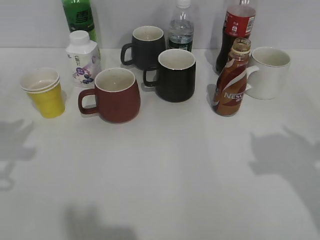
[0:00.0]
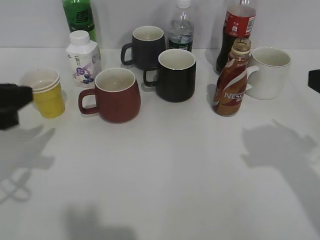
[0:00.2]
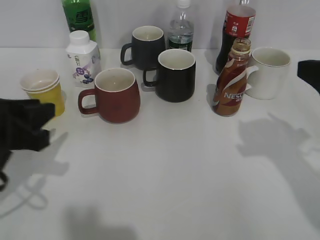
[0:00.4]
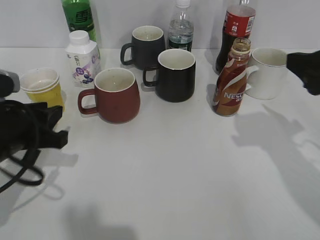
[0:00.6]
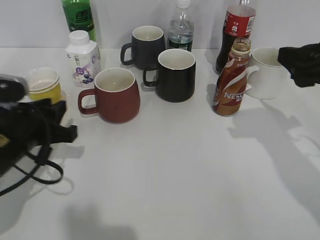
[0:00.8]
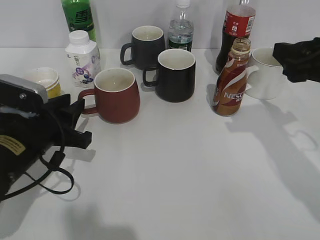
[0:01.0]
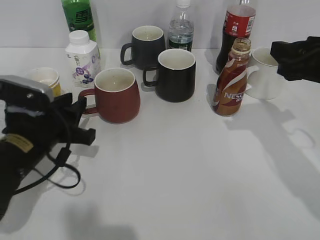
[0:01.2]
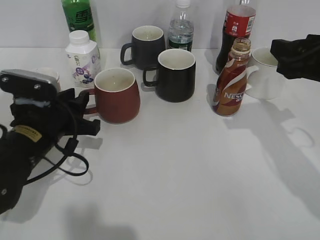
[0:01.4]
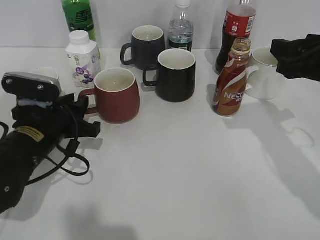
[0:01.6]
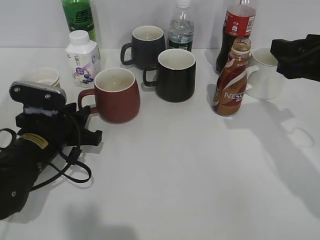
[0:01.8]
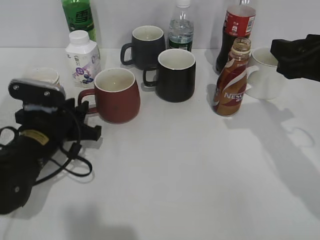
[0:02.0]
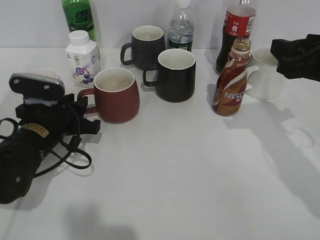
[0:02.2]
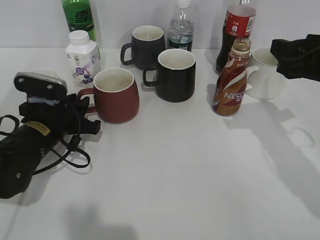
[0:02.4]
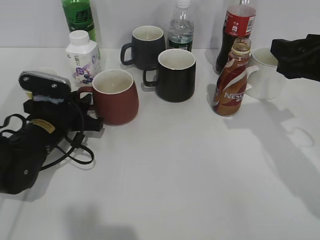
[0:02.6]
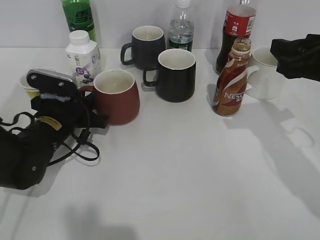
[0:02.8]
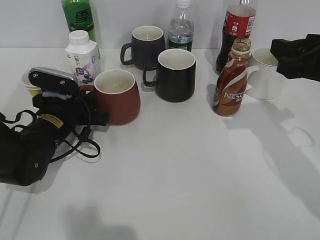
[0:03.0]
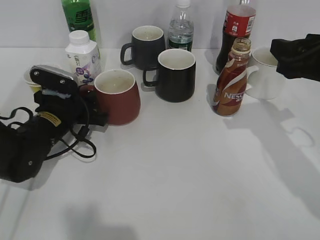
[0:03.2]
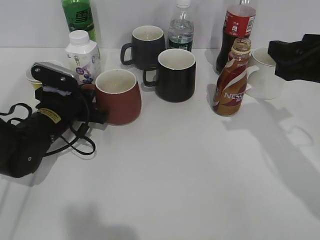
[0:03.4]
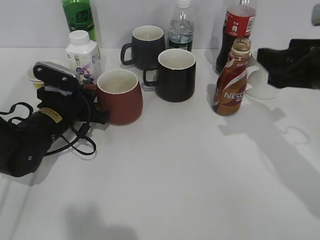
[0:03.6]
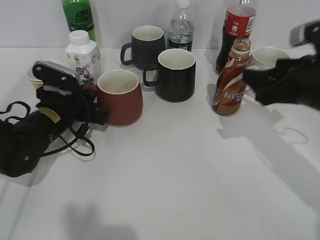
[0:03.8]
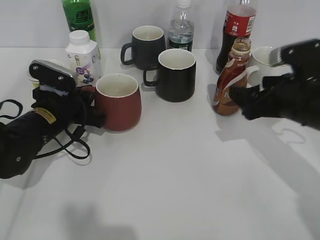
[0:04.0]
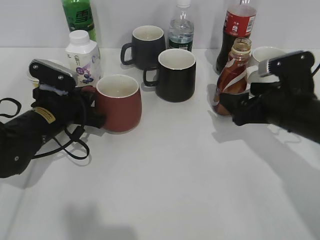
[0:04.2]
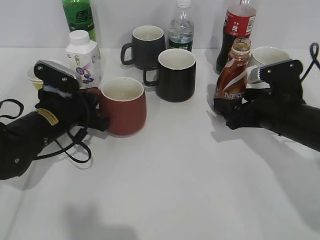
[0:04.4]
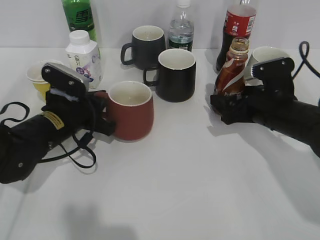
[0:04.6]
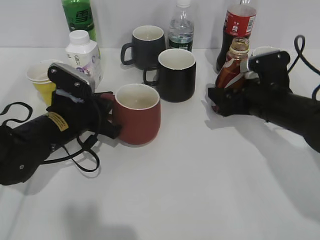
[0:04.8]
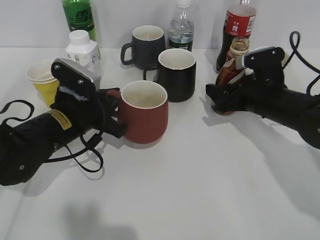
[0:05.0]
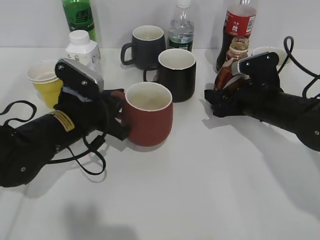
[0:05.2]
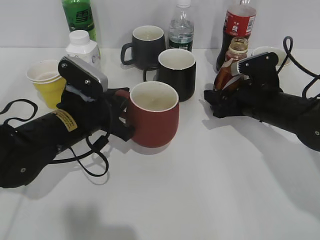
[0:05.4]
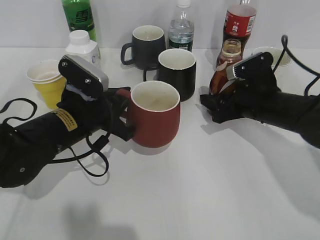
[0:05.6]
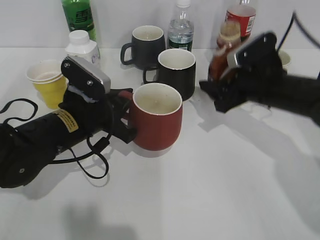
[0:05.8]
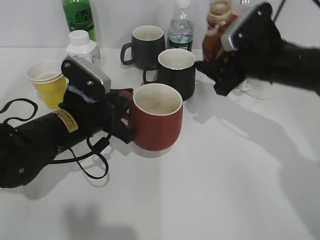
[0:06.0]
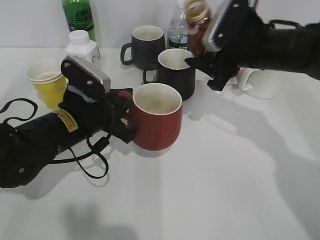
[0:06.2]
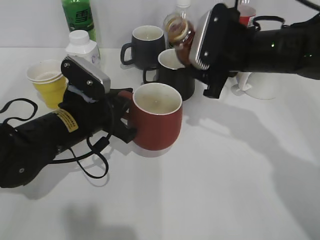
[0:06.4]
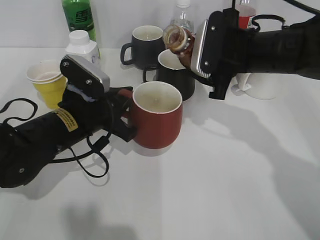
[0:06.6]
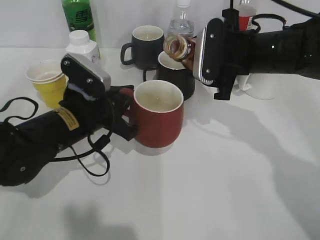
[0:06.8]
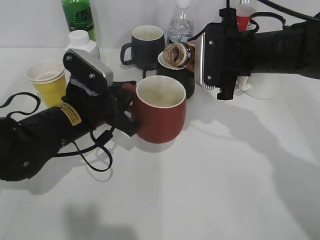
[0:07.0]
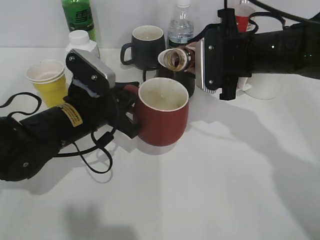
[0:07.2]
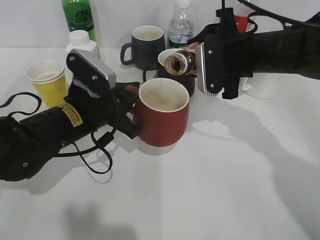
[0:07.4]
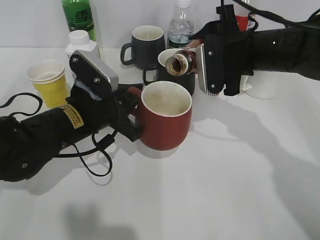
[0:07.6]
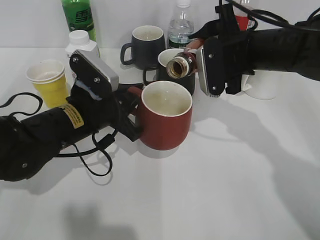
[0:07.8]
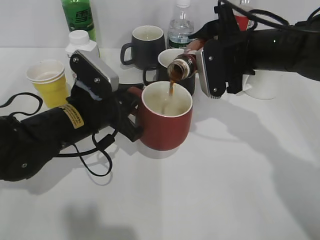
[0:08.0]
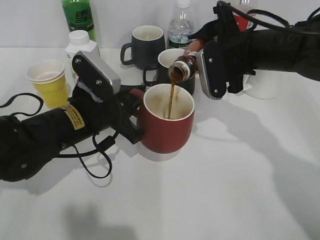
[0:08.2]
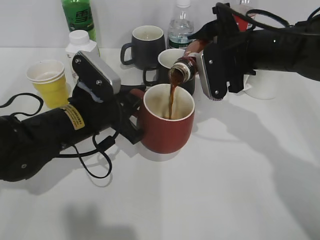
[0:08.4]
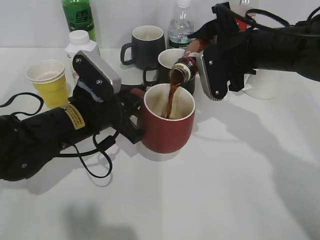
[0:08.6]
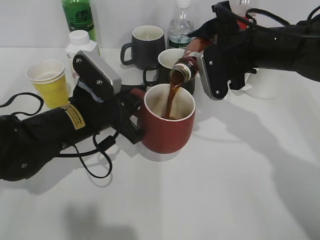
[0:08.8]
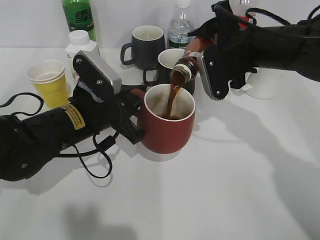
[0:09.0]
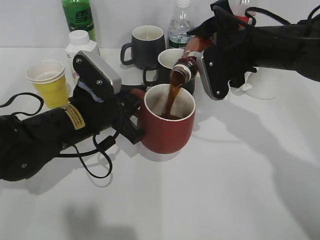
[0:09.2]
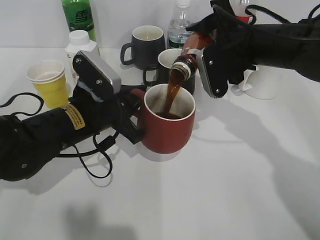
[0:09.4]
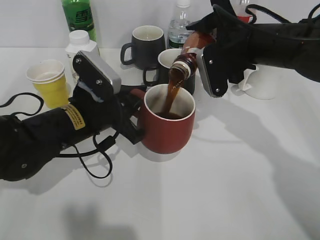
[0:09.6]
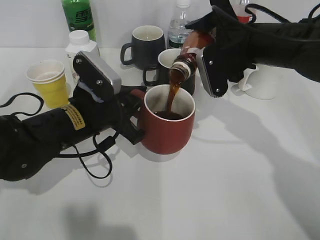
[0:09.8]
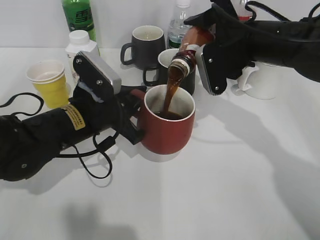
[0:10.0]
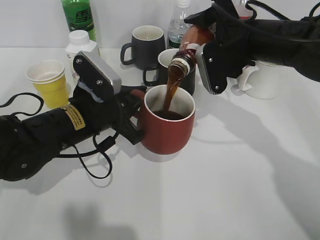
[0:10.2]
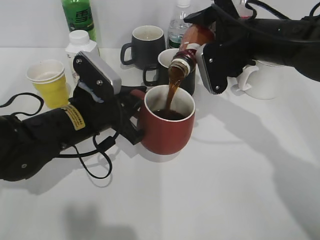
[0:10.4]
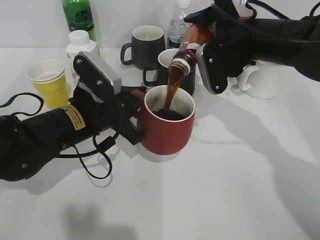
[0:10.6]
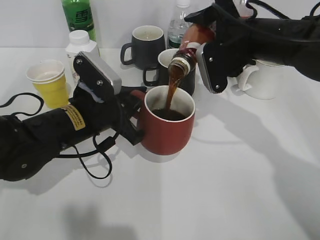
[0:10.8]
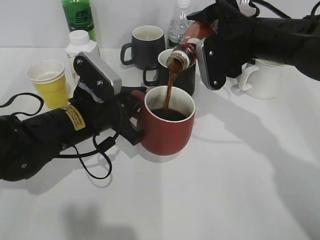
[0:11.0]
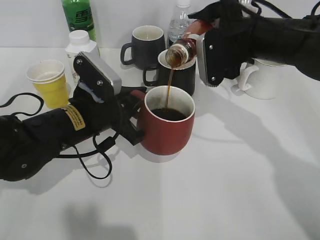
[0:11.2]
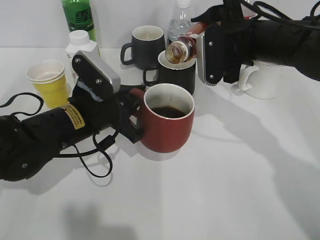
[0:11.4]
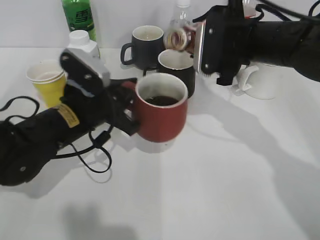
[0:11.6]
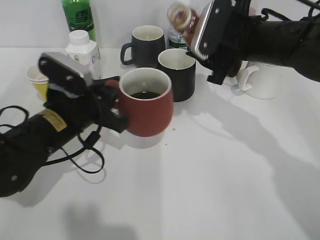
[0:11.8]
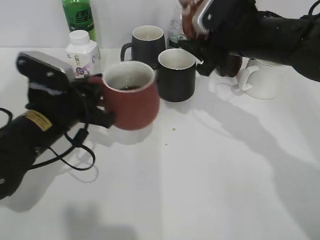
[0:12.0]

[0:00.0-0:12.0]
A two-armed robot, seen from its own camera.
Step, 0:00.0 to 0:03.4: Grasp the red cup with left gripper.
Step, 0:03.8 to 0:05.4: Grasp the bottle with coffee with right gripper.
Step, 0:05.6 to 0:11.6: Pour the coffee from bottle to cup with right gripper.
0:00.0 to 0:01.6: The right gripper heads forward and downward, covering approximately 15 cm, and closes. Meanwhile the left gripper goes roughly 20 cm downward, to the right and forward.
0:01.6 to 0:03.0: The left gripper moves forward, some 5 cm.
0:03.0 to 0:04.4: The left gripper closes up. The right gripper is displaced downward by about 10 cm, and opens.
0:04.4 to 0:06.0: The left gripper shifts by approximately 5 cm. The right gripper heads upward, covering roughly 5 cm, and closes up.
0:07.6 to 0:09.0: The grippers stay close to where they were, moving slightly.
0:09.0 to 0:10.4: There are only small adjustments of the grippers.

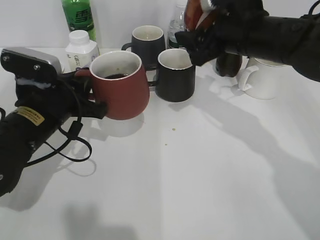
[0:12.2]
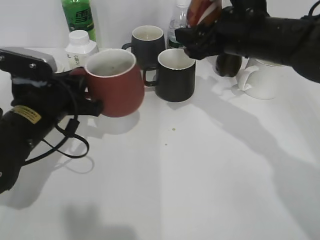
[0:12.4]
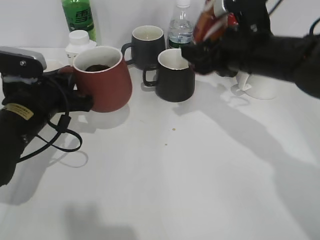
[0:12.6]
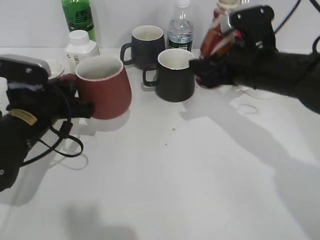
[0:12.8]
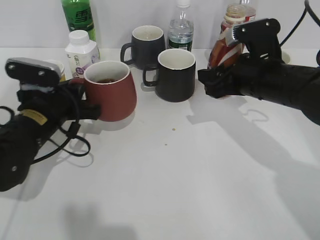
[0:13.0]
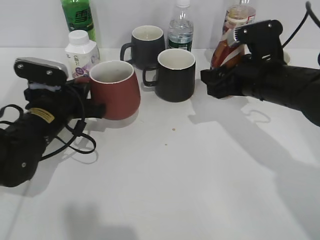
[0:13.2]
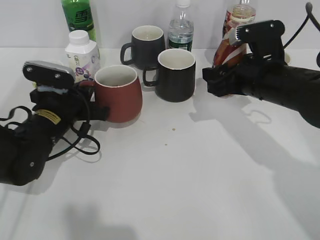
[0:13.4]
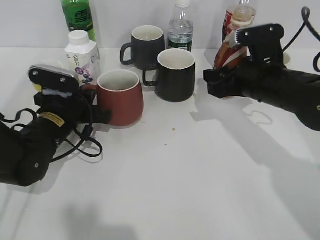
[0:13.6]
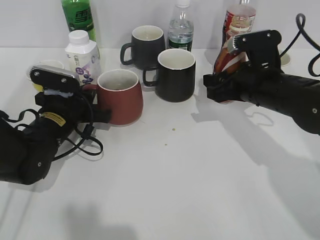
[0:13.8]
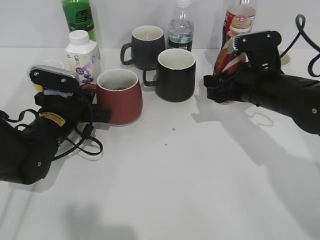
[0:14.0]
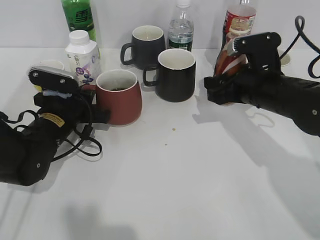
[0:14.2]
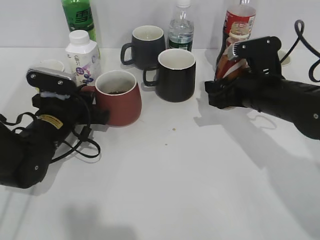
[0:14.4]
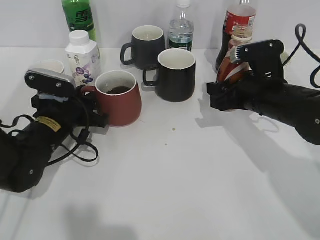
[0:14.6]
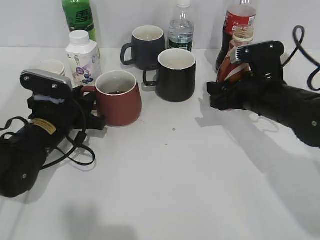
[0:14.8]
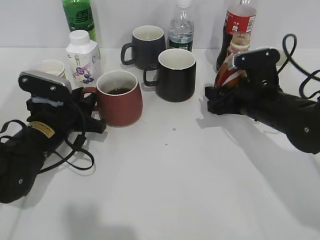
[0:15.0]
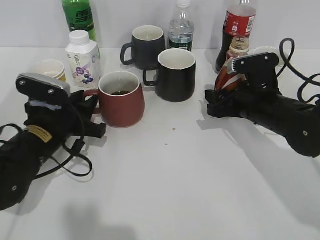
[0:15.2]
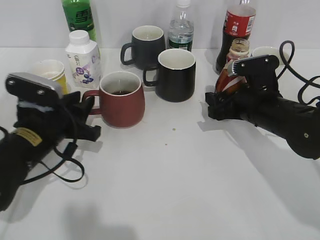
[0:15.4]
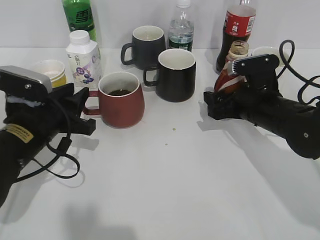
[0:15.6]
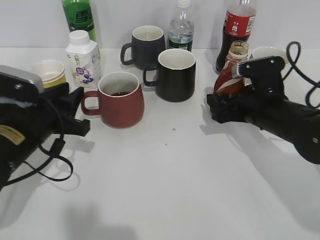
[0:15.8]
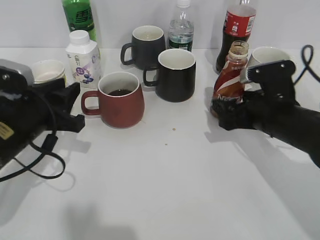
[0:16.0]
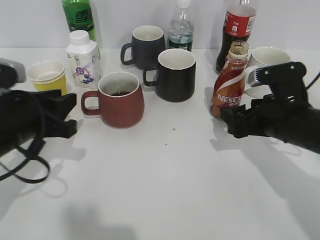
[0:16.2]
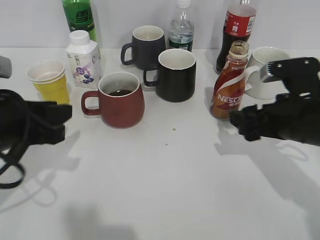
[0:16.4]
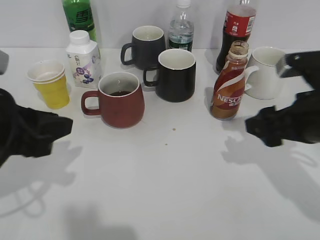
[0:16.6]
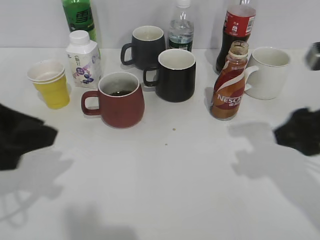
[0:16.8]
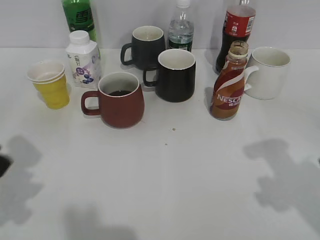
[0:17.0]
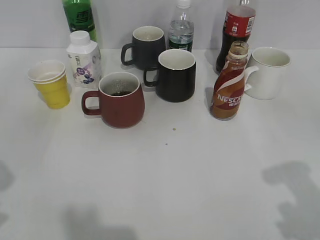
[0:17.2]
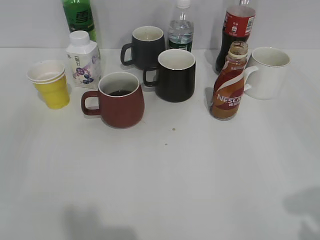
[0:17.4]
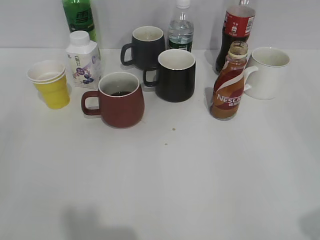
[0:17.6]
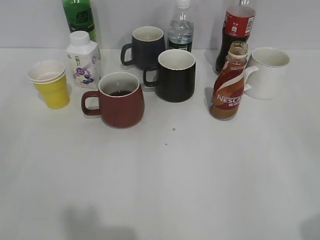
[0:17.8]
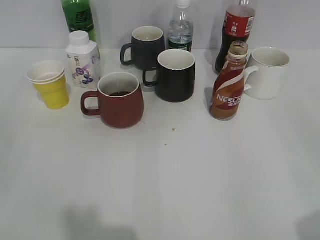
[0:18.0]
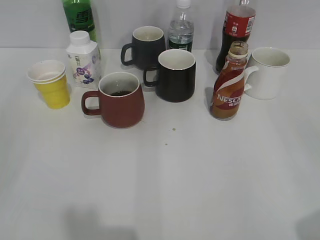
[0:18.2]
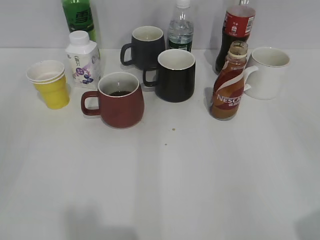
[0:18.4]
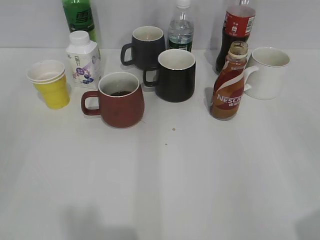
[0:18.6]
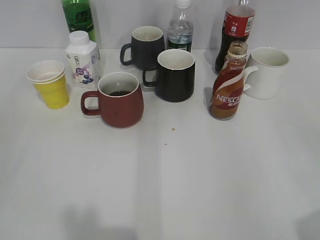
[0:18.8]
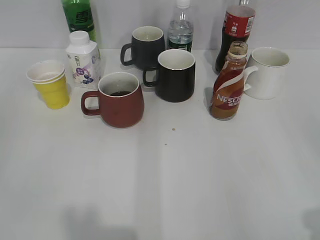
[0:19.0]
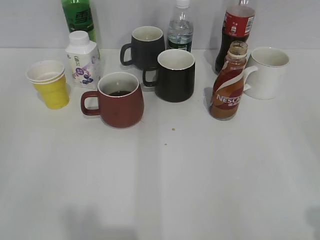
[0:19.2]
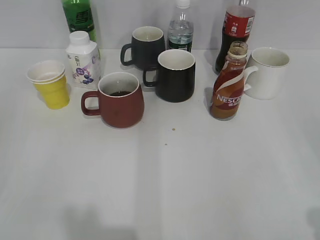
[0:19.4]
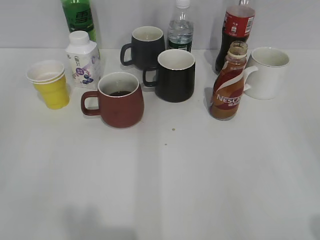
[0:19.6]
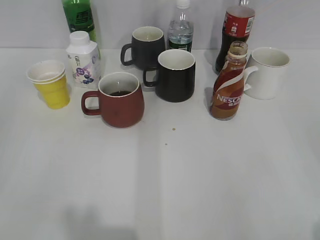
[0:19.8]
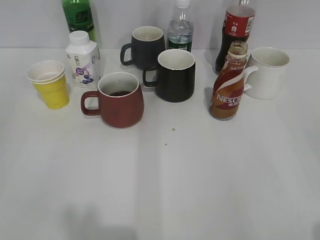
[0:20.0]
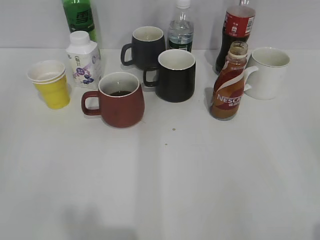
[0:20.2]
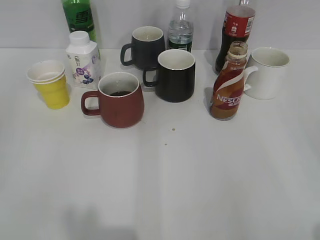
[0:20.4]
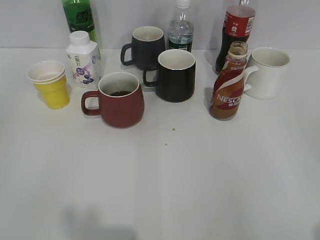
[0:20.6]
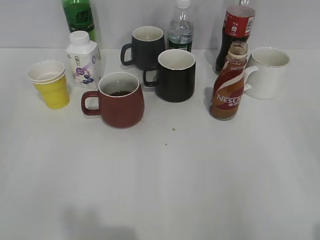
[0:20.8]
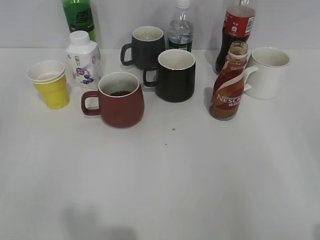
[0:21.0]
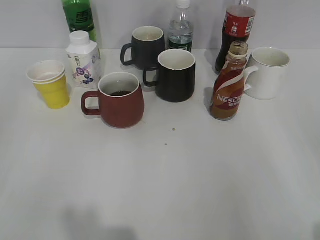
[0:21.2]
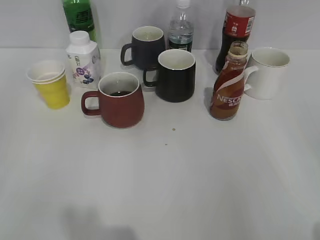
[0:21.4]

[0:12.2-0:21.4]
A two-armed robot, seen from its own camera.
Step, 0:12.2 to 0:16.0: Place the red cup on the table with left gripper.
0:12.2 to 0:13.8: The right gripper is displaced downward by roughly 10 cm. The left gripper moves downward and forward, roughly 10 cm.
0:13.8 to 0:15.2: The left gripper opens its fingers.
0:15.2 to 0:16.8: The left gripper is displaced upward and backward by some 20 cm; the right gripper travels backward and upward by some 15 cm, and opens its fingers.
0:16.8 to 0:18.4: The left gripper heads backward and to the left, covering roughly 20 cm, while the right gripper shifts about 20 cm backward and to the right.
0:19.8 to 0:21.4: Both grippers stay put.

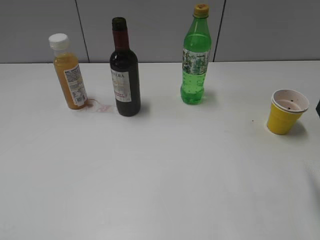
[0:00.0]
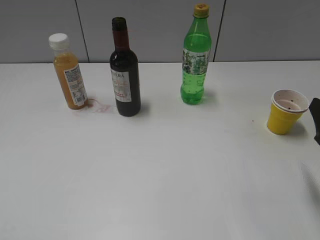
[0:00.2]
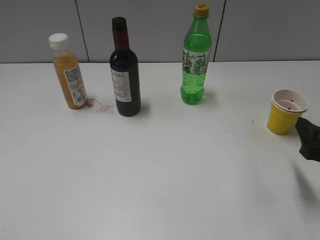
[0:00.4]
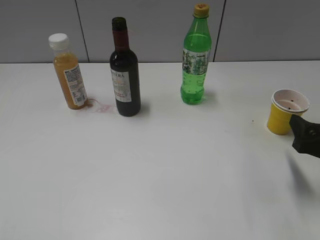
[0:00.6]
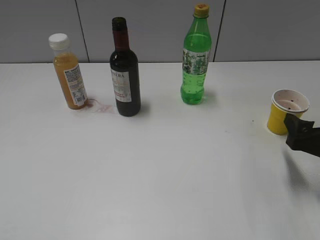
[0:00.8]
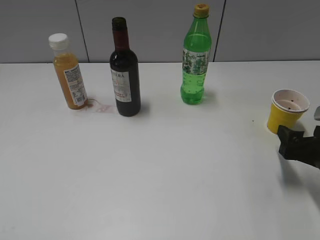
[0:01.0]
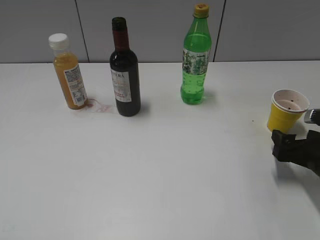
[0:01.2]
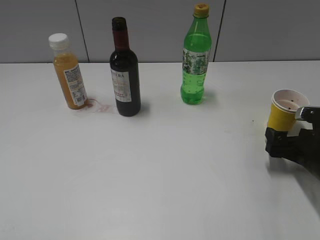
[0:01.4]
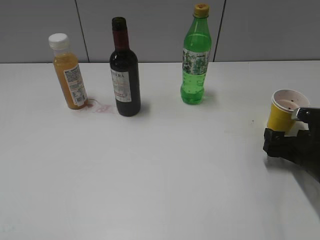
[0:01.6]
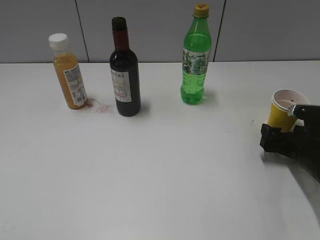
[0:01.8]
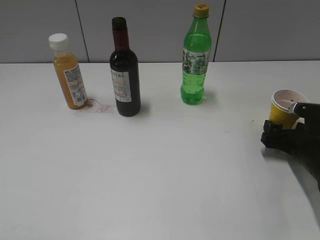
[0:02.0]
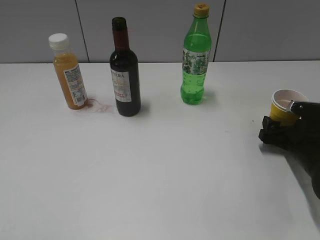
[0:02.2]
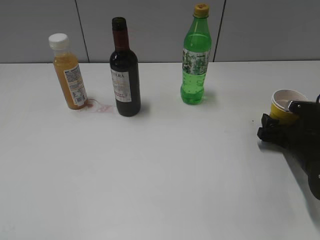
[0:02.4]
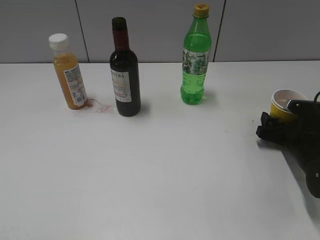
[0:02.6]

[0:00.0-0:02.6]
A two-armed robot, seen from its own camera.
0:00.0 to 0:01.2: The right gripper is displaced downward and forward by some 15 cm.
0:01.2 to 0:02.6: The right gripper goes some 5 cm forward.
